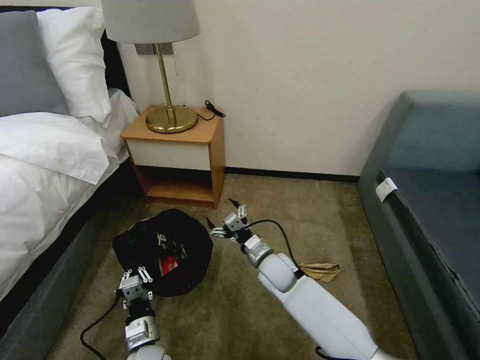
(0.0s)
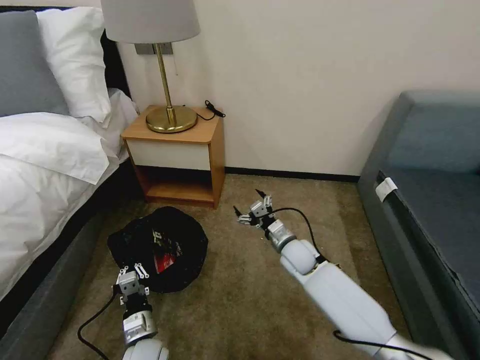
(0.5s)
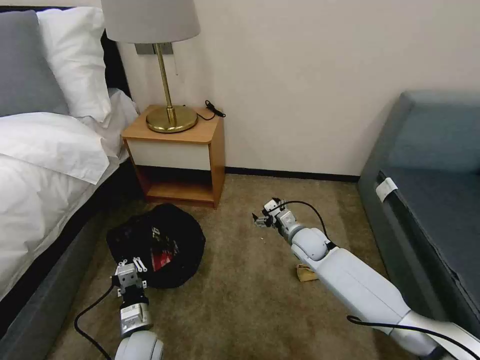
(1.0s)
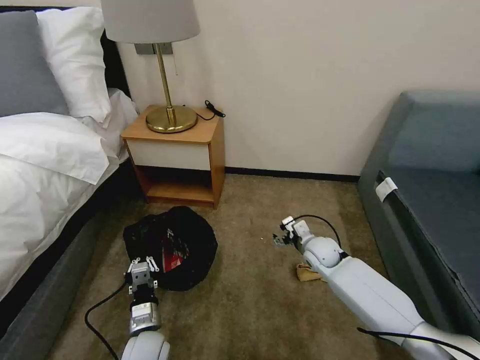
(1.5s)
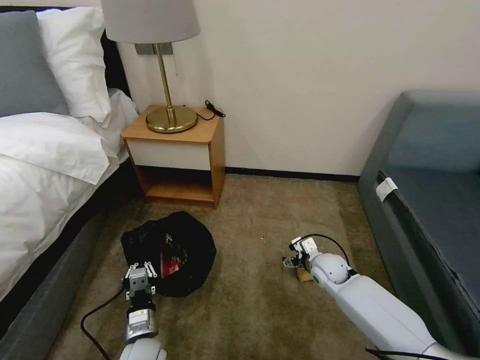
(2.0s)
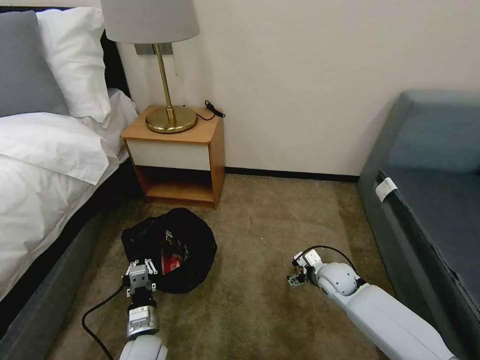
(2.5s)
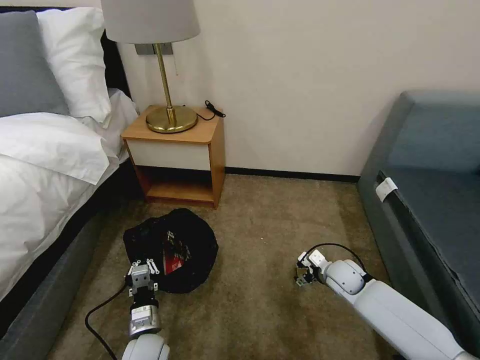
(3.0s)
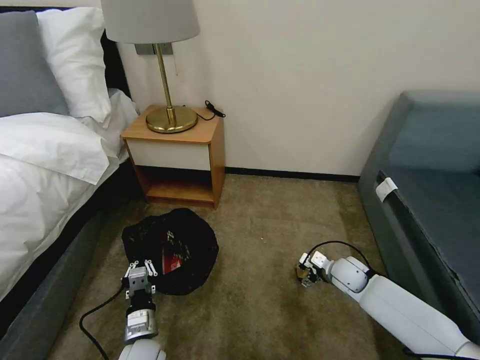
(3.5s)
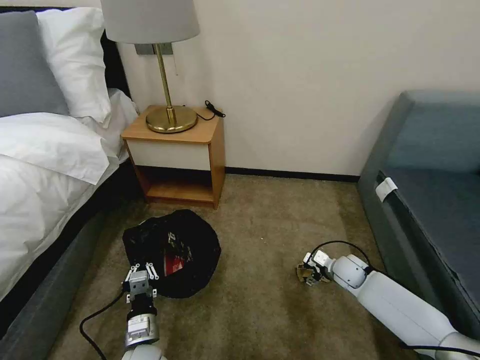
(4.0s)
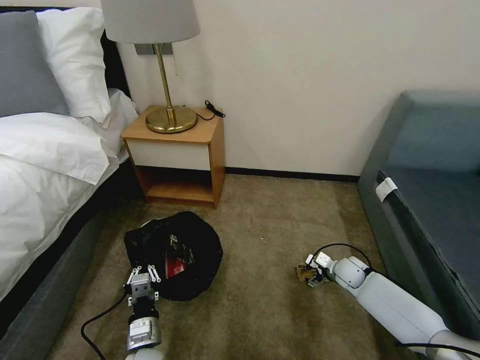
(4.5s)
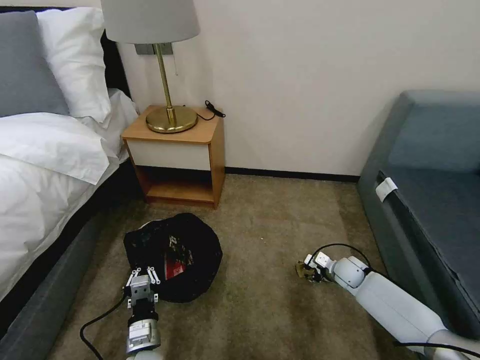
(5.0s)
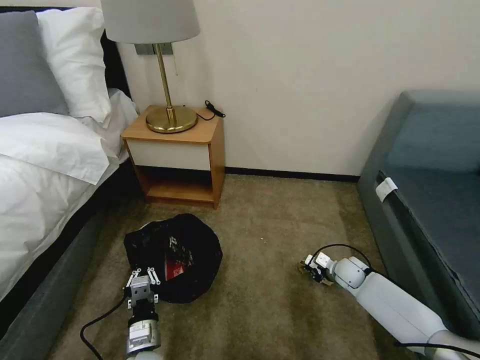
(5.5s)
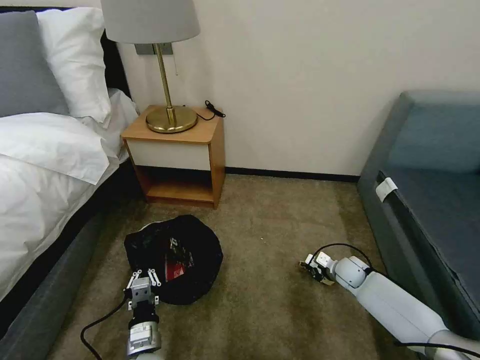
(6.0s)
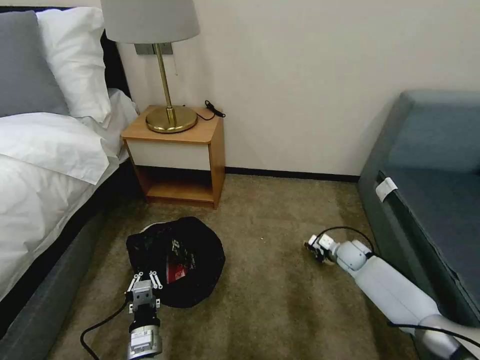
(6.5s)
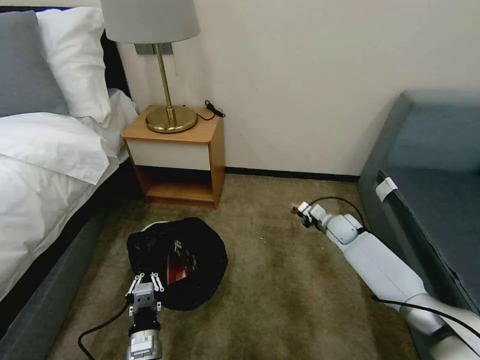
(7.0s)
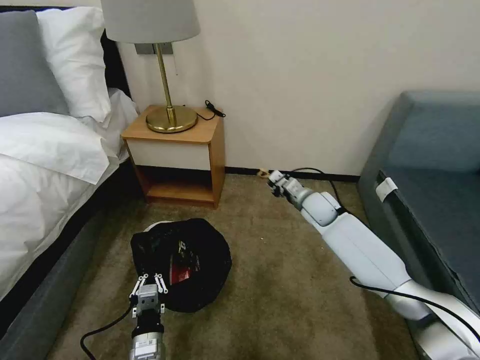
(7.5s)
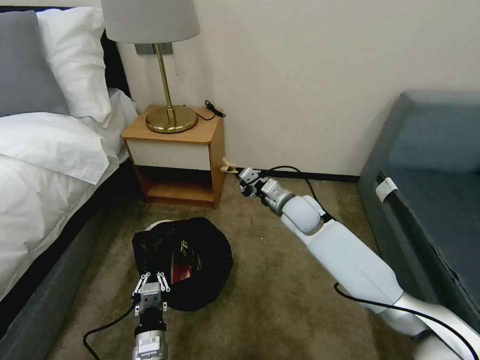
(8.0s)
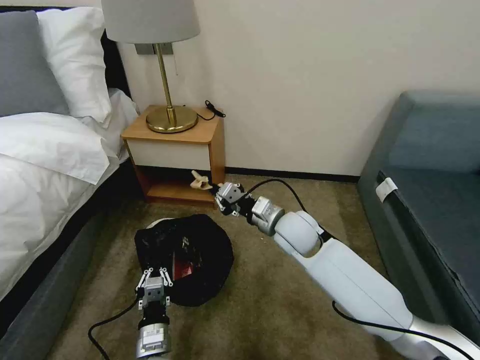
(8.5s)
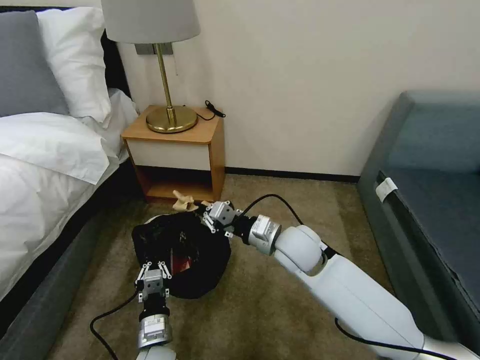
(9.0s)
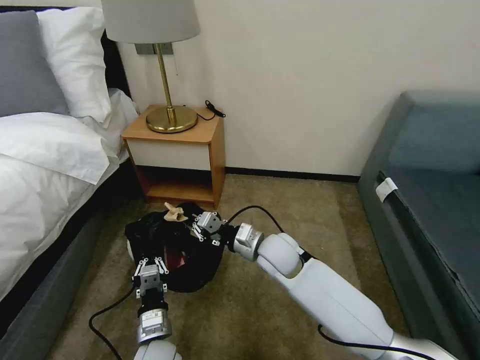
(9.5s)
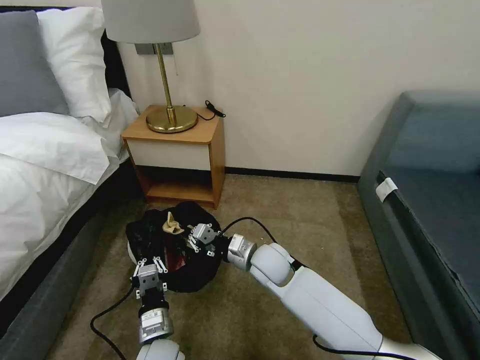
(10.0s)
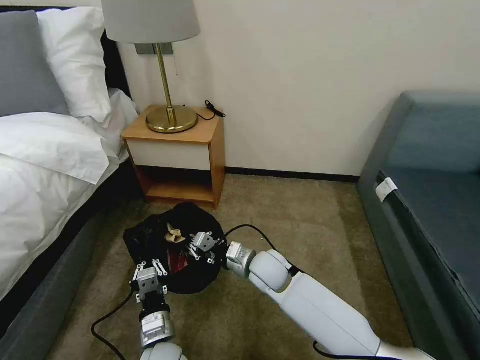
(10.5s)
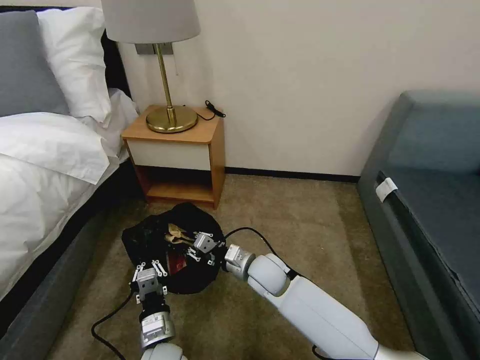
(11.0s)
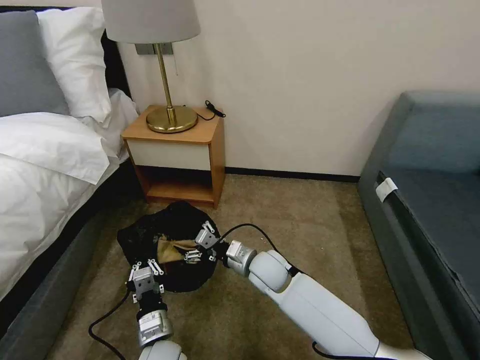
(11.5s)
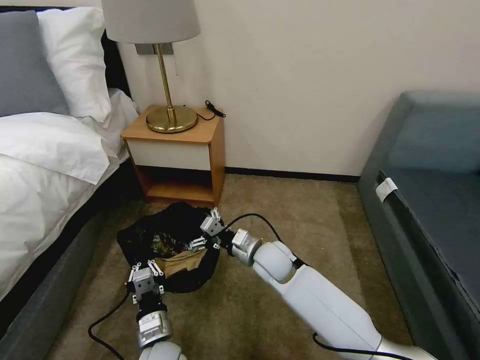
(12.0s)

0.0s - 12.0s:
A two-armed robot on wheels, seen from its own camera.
Task of the whole recording: Pick up the trash bin, then pick up the garbage on the floor and place it into the trash bin.
0.0s - 2.0s: The right gripper is displaced to the right by roughly 15 cm.
2.0s - 4.0s: The right gripper shifts about 5 cm to the right.
4.0s - 6.0s: The right gripper closes its fingers.
6.0s - 8.0s: The right gripper shifts approximately 30 cm upward and to the left.
8.0s - 10.0s: The right gripper is displaced backward, to the left and downward by some 15 cm.
10.0s - 12.0s: The right gripper opens up.

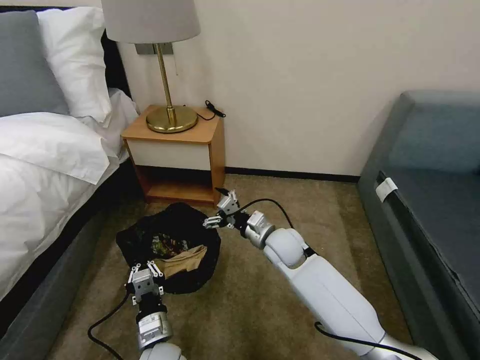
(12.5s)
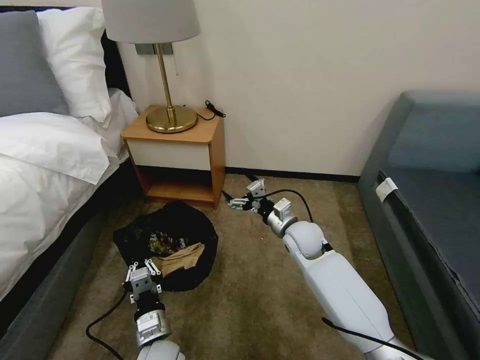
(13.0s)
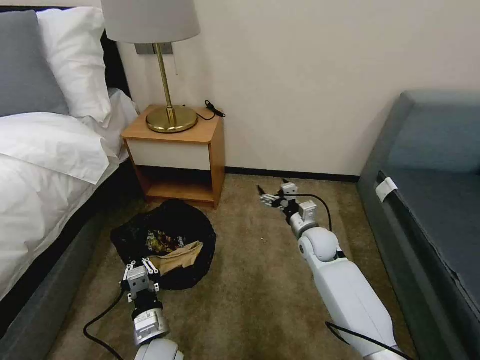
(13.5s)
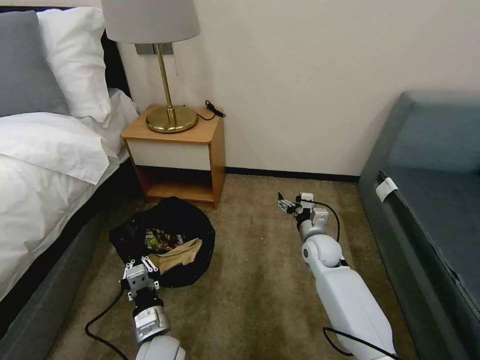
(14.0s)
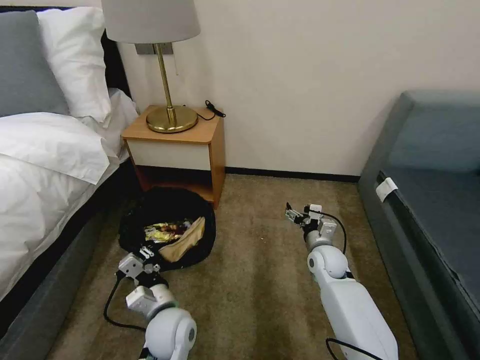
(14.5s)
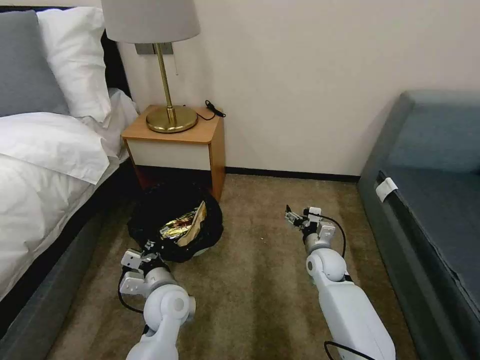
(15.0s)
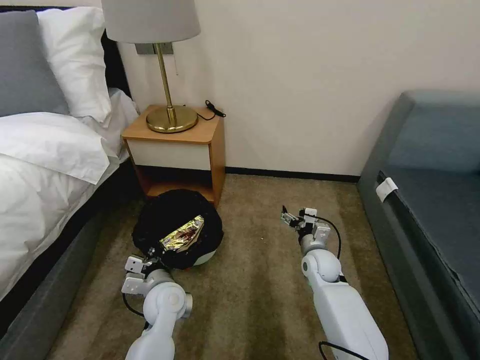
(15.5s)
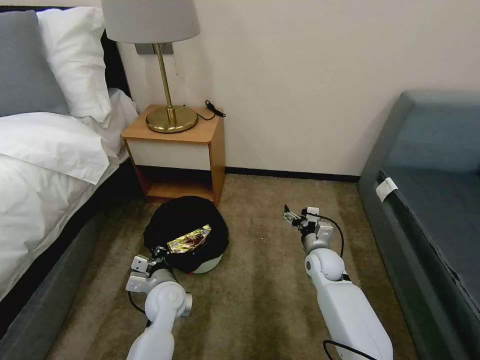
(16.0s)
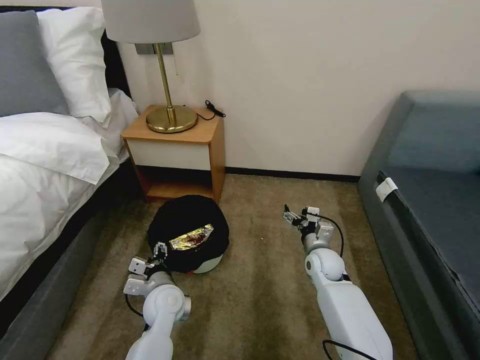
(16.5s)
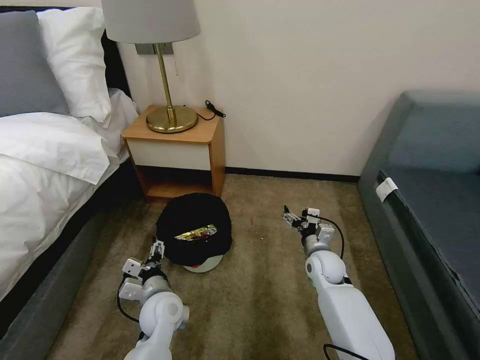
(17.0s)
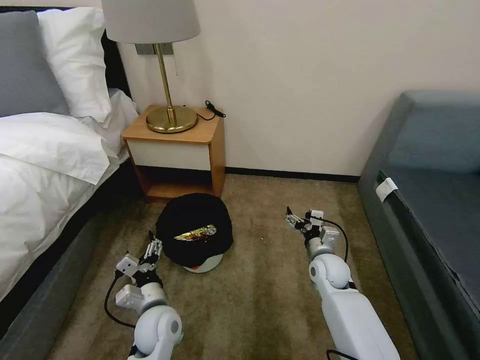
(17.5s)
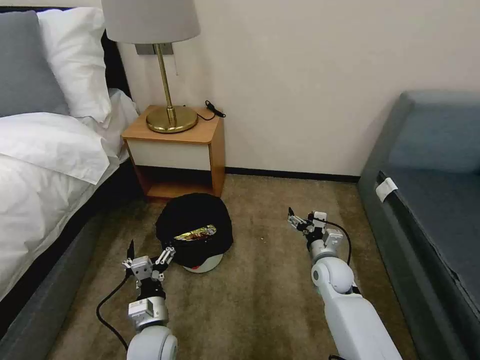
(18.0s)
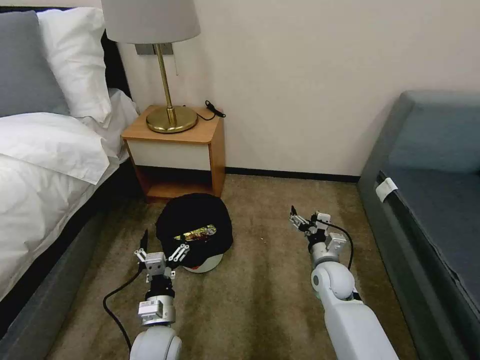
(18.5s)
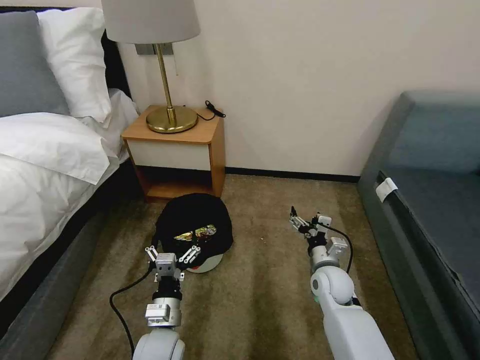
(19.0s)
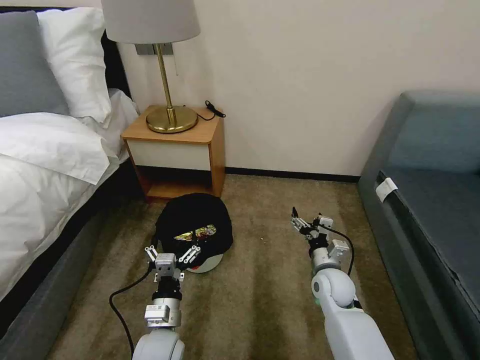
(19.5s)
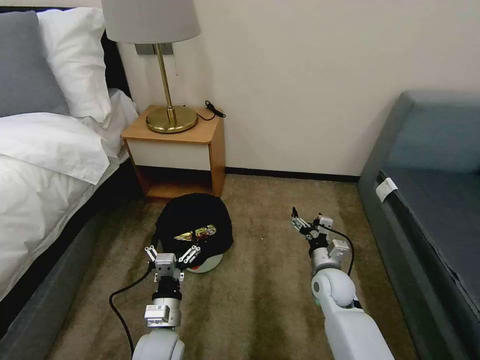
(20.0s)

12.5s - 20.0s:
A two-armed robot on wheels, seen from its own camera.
Task of the whole recording: Pick up the trash bin, then pick up the garbage on the floor and place it into the trash bin.
12.5s - 14.5s: The right gripper heads to the right and downward, covering roughly 15 cm, while the left gripper goes about 5 cm forward.
14.5s - 16.5s: The left gripper shifts some 5 cm forward, and opens up.
16.5s - 18.0s: The left gripper heads backward, covering about 10 cm.
18.0s - 20.0s: The grippers stay close to where they were, moving slightly.

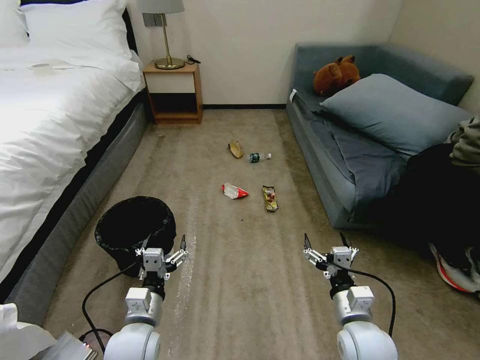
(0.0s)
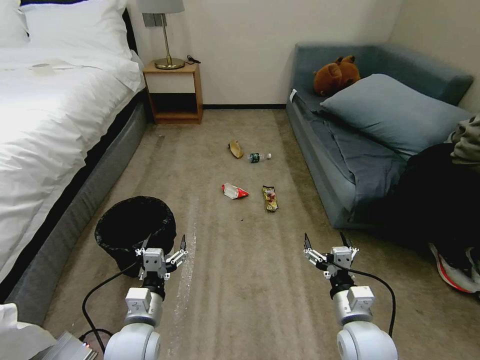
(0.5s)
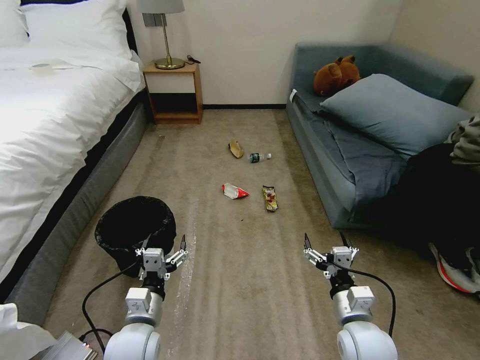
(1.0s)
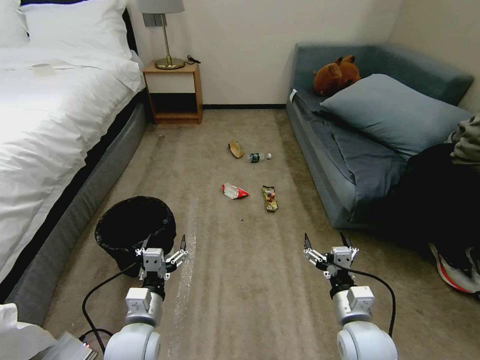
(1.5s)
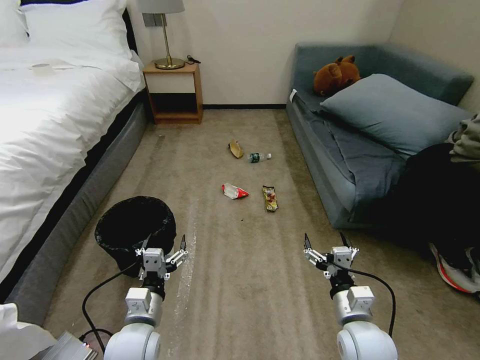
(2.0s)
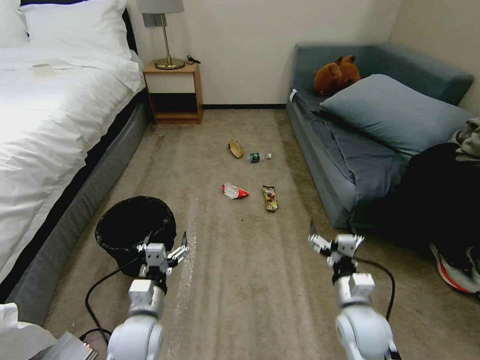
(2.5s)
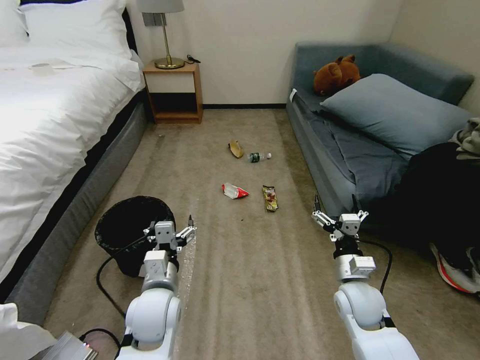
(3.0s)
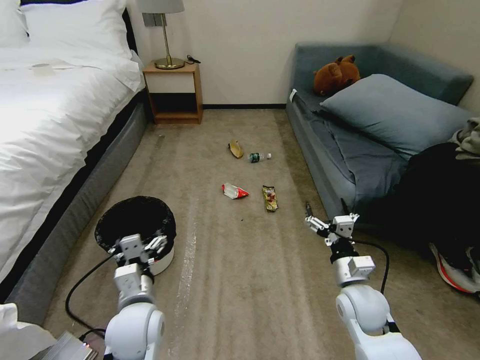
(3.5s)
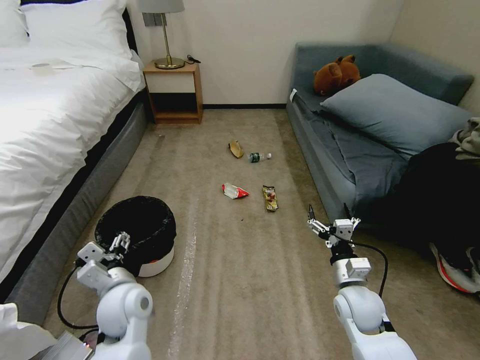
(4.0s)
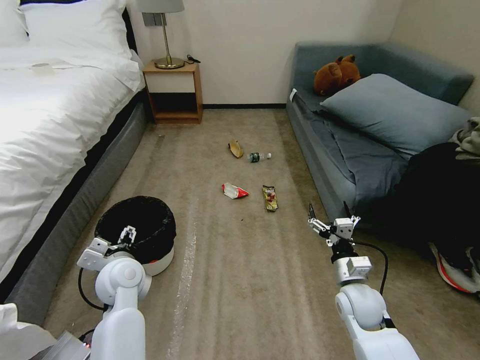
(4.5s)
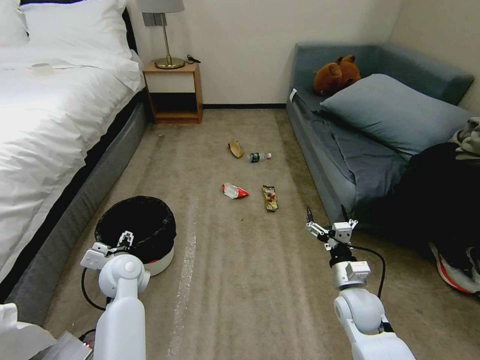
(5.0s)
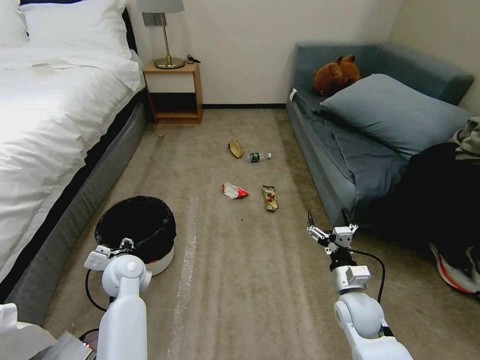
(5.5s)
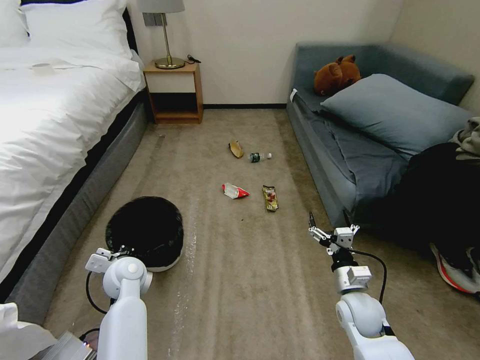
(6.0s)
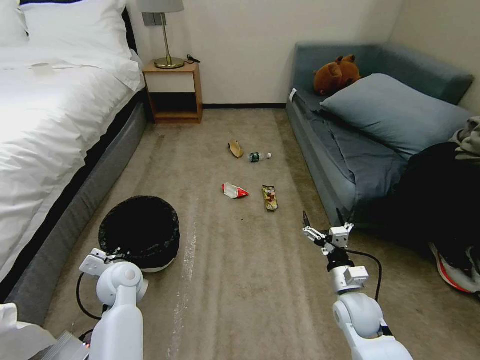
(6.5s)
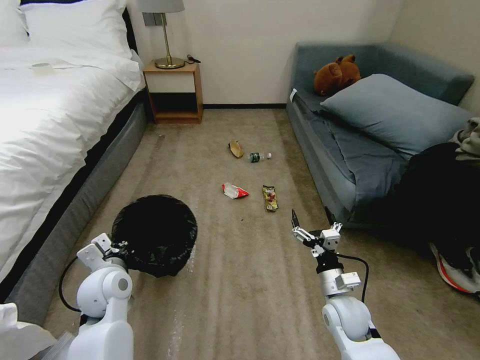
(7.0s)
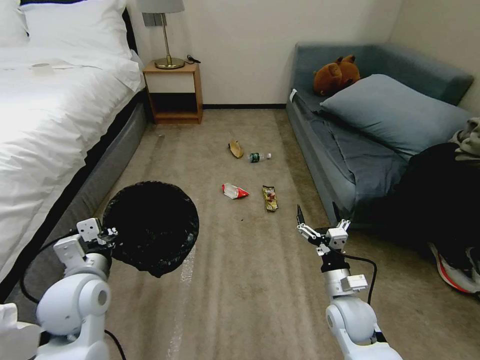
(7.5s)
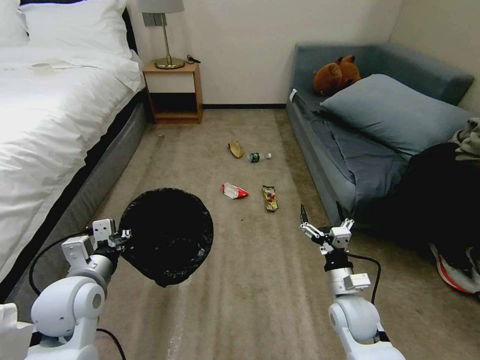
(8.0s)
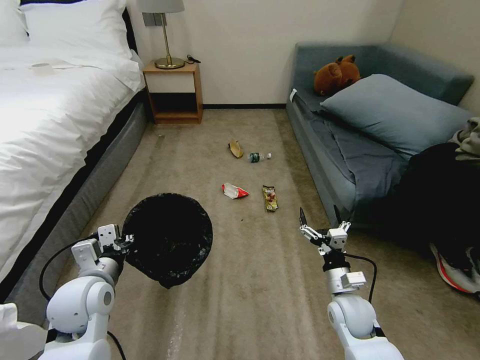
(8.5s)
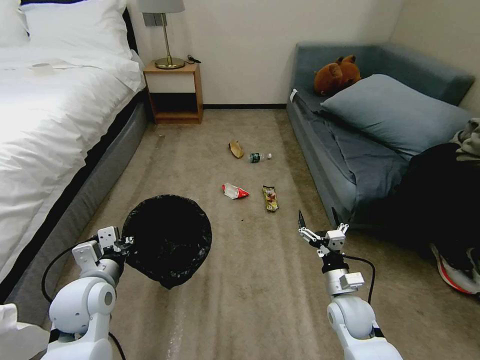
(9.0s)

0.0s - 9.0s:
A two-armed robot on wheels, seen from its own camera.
Task of the whole recording: Pick up the trash bin, then pick up the garbage on the floor and place it into the trash bin.
2.0s - 4.5s: The left gripper goes about 15 cm forward and upward. Meanwhile the right gripper travels forward by roughly 10 cm.
4.5s - 7.0s: The left gripper closes.
